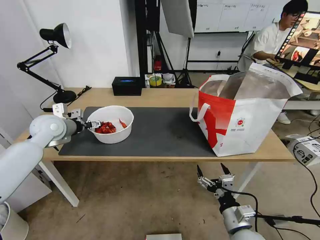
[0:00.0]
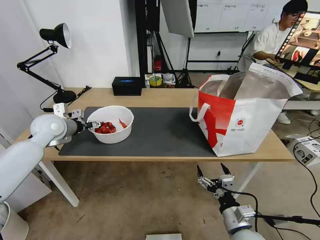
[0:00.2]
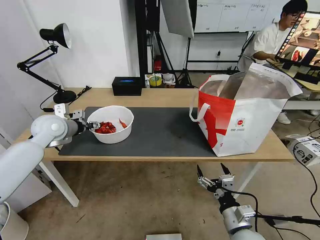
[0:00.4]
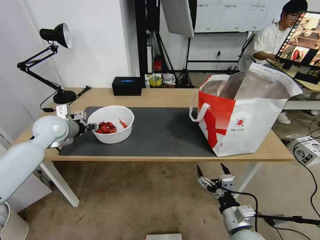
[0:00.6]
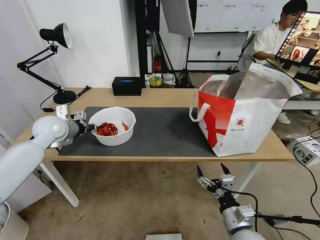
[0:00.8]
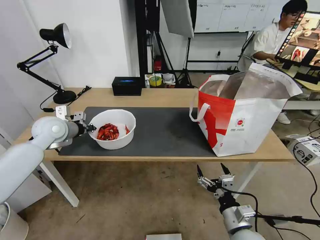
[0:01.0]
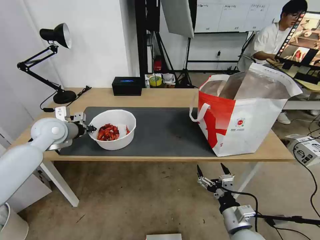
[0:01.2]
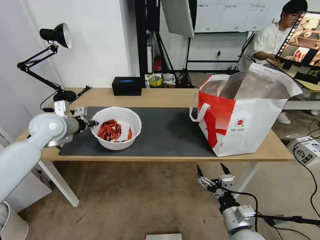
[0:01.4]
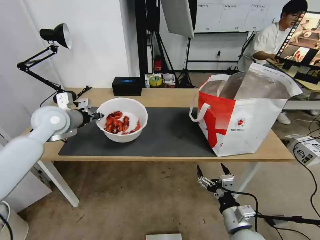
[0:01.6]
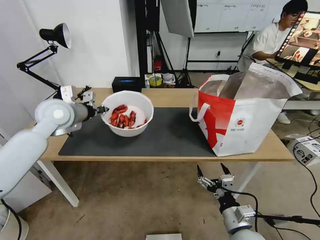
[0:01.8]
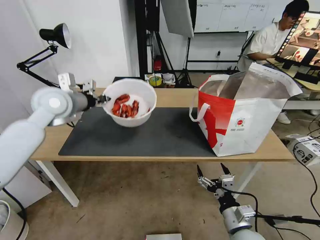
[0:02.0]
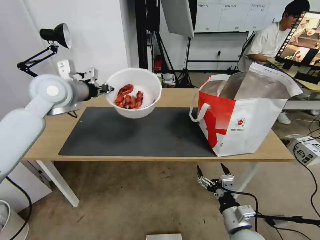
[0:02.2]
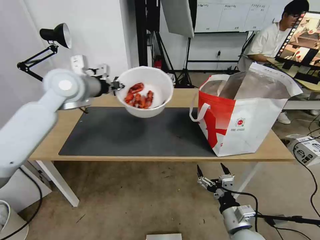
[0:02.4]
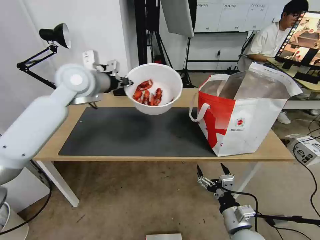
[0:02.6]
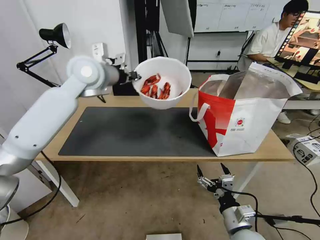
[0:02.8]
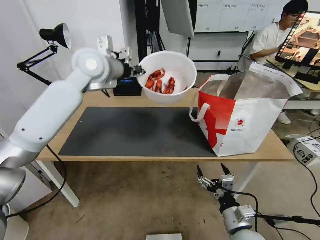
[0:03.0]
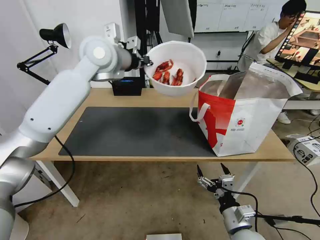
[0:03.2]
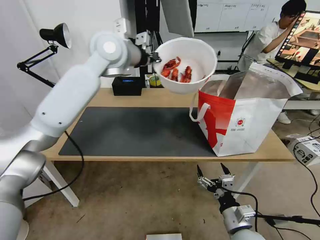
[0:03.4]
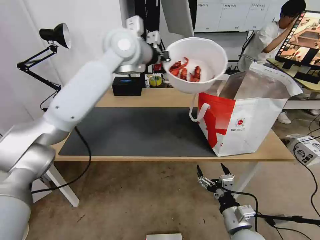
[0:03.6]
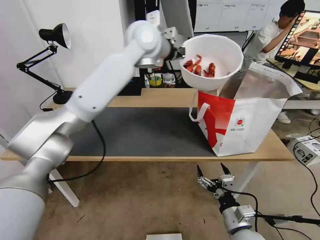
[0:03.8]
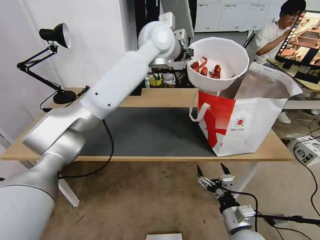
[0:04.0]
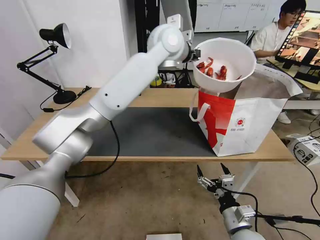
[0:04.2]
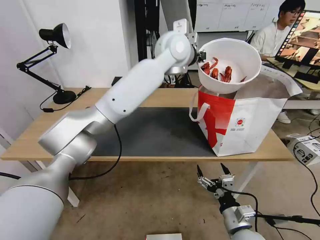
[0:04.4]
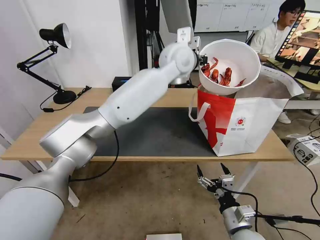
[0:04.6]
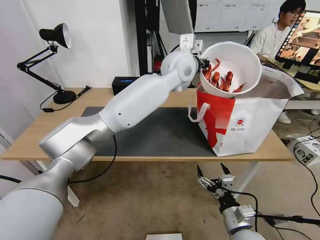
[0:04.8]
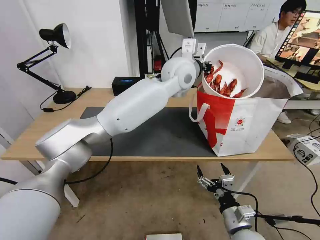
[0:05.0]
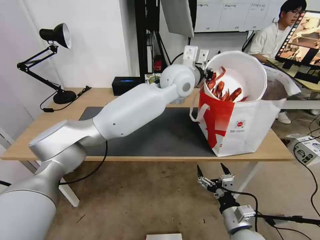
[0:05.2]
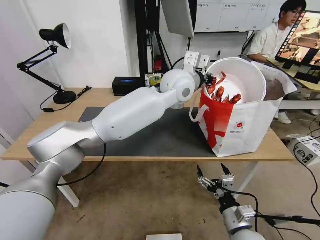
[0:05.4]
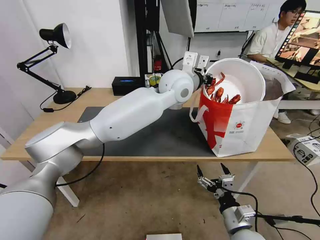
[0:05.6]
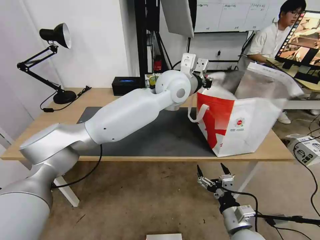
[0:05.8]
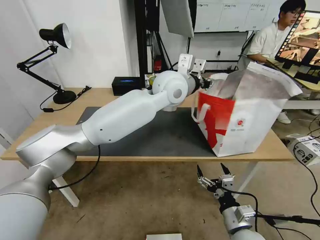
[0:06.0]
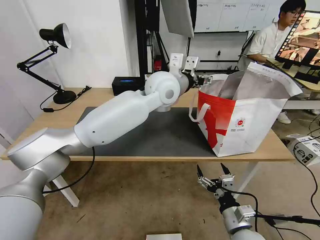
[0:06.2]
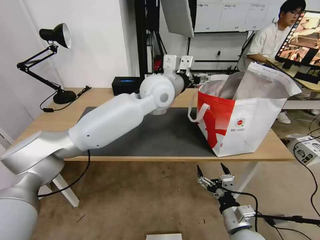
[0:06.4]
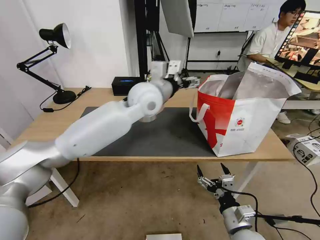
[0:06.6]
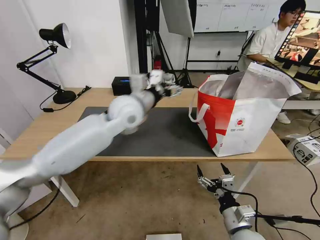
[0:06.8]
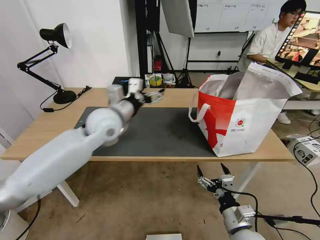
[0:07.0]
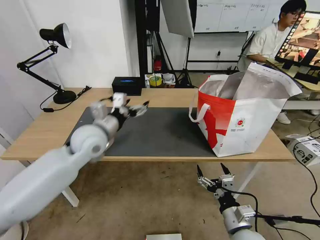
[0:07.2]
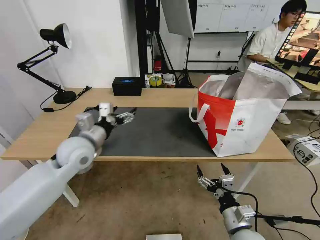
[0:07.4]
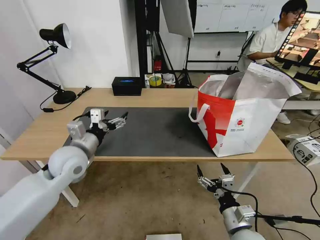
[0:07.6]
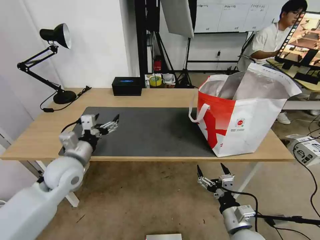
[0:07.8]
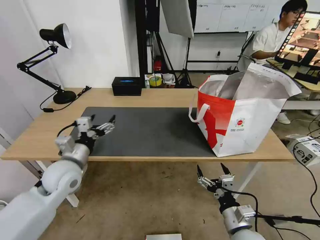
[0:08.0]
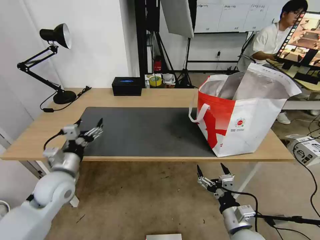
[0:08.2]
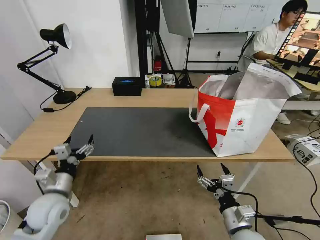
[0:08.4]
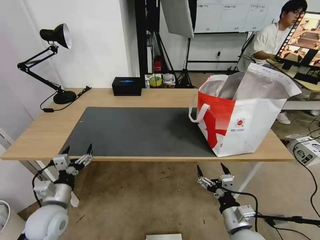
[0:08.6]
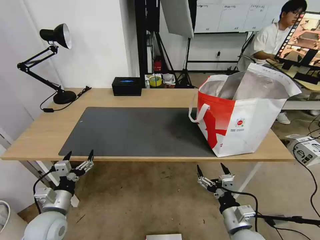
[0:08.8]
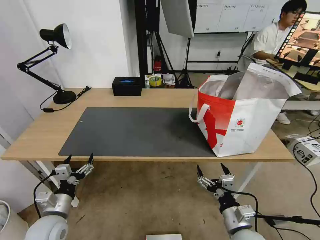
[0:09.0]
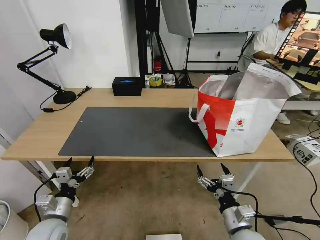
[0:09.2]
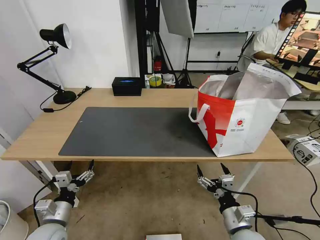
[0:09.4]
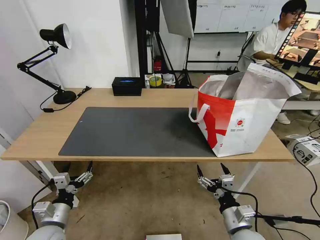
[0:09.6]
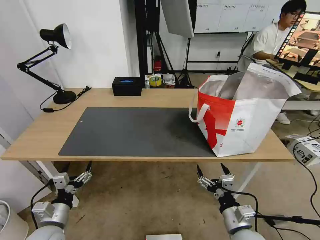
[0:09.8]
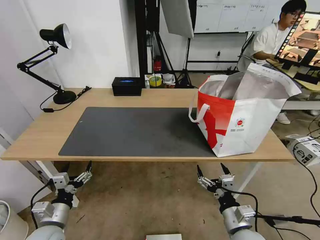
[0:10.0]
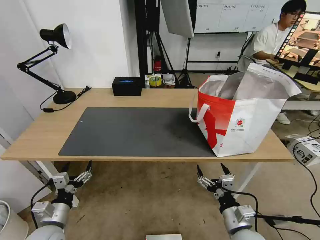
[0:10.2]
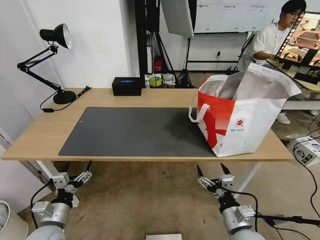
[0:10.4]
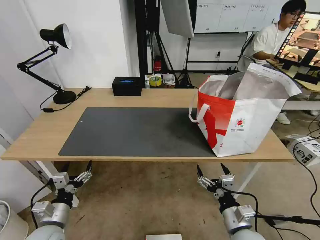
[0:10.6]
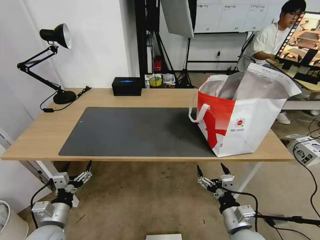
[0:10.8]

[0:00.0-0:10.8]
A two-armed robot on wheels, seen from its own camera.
Task of the whole recording: Pick up the trash from the table and place it into the takeout bag.
0:00.0 to 0:01.6: The left gripper ends up some 5 cm from where it was, and closes.
0:01.6 to 0:03.0: The left gripper heads upward, to the right and forward, covering about 20 cm.
0:03.0 to 0:04.6: The left gripper is displaced to the right by approximately 20 cm.
0:04.6 to 0:06.2: The left gripper shifts roughly 10 cm backward and downward, and opens its fingers.
0:06.2 to 0:07.8: The left gripper is displaced to the left, downward and backward by approximately 35 cm.
0:07.8 to 0:09.2: The left gripper shifts approximately 20 cm downward and backward.
0:09.2 to 0:10.8: The grippers move only a little.

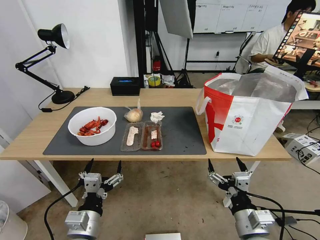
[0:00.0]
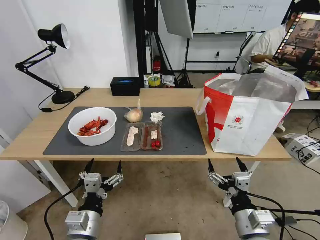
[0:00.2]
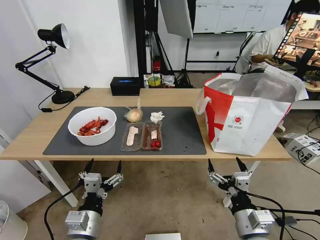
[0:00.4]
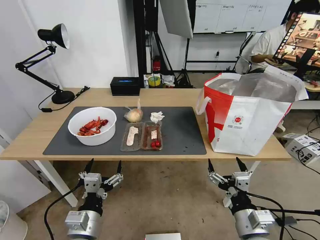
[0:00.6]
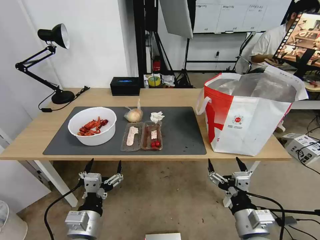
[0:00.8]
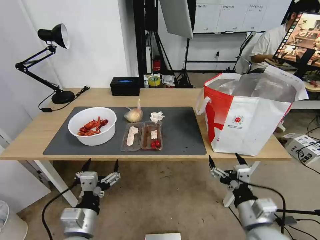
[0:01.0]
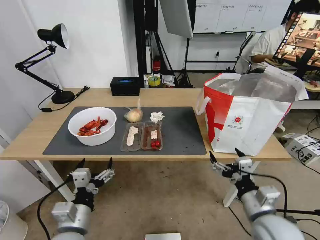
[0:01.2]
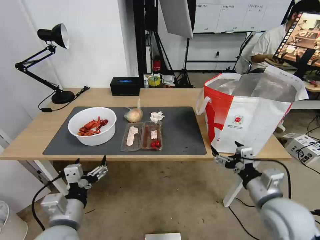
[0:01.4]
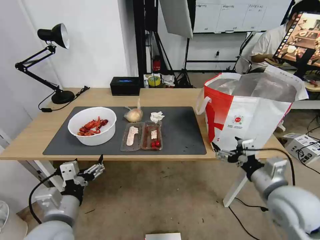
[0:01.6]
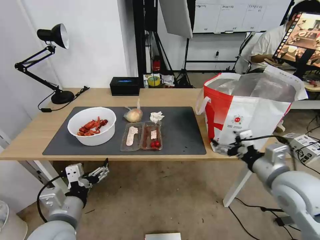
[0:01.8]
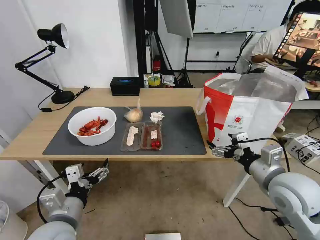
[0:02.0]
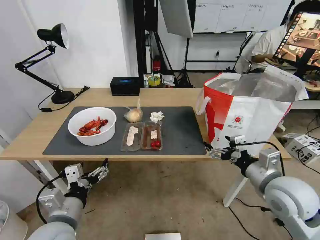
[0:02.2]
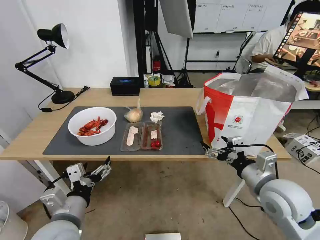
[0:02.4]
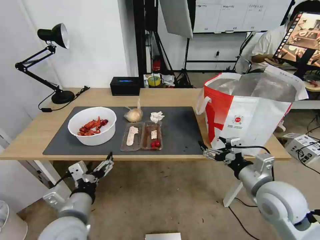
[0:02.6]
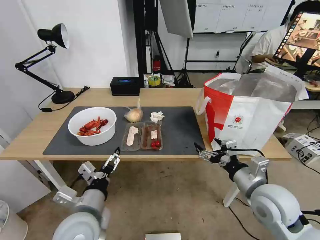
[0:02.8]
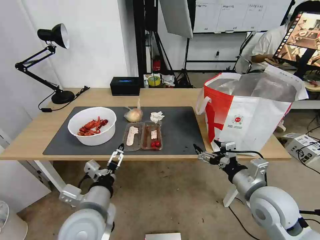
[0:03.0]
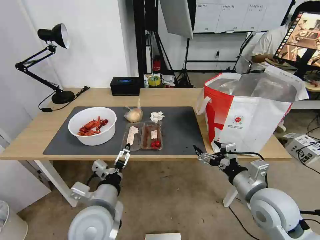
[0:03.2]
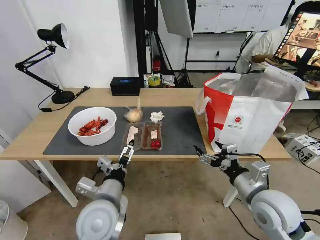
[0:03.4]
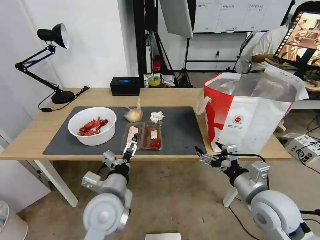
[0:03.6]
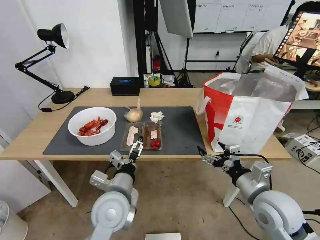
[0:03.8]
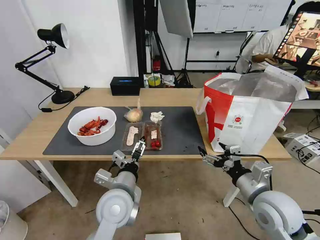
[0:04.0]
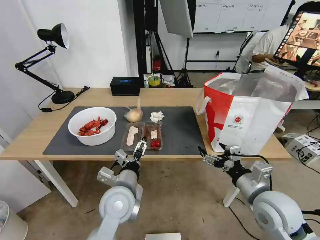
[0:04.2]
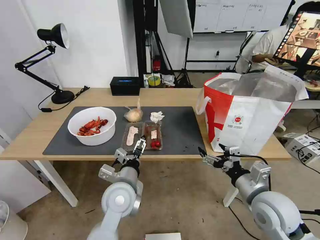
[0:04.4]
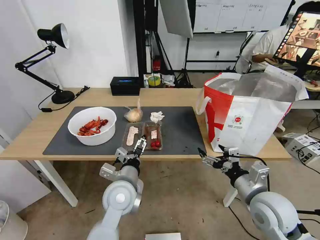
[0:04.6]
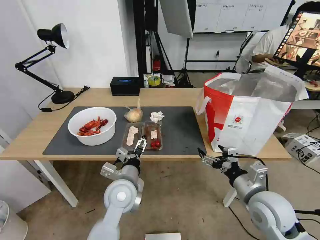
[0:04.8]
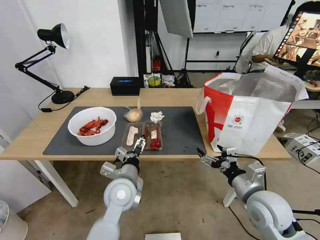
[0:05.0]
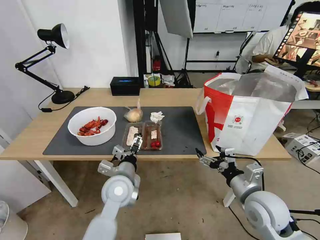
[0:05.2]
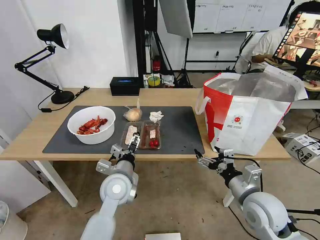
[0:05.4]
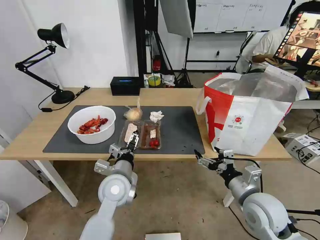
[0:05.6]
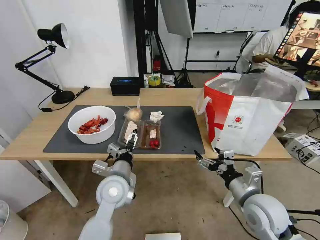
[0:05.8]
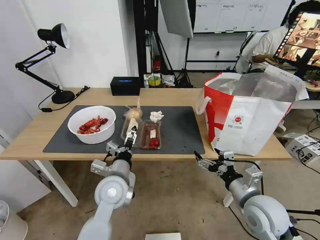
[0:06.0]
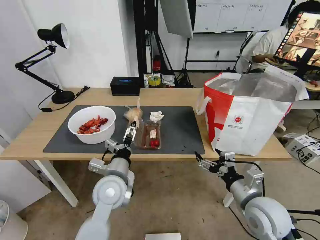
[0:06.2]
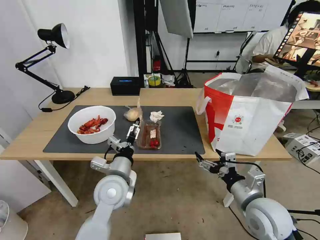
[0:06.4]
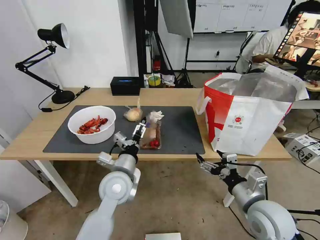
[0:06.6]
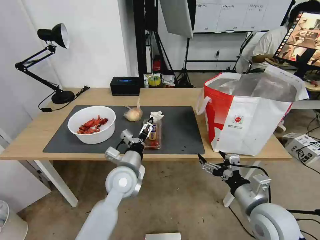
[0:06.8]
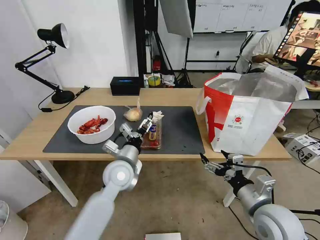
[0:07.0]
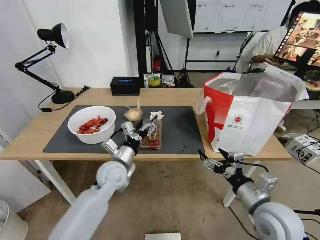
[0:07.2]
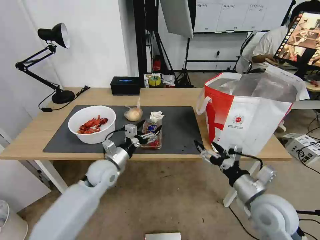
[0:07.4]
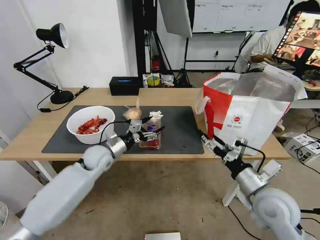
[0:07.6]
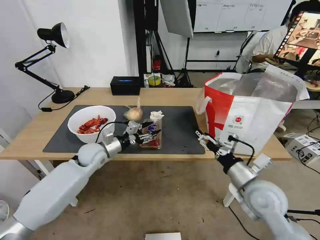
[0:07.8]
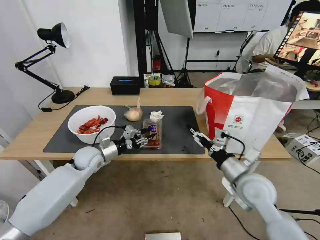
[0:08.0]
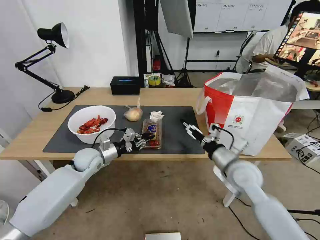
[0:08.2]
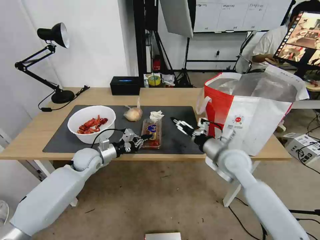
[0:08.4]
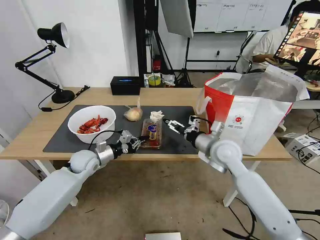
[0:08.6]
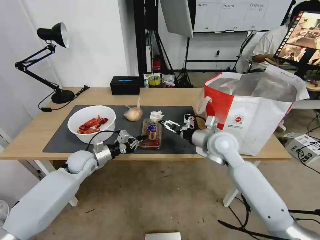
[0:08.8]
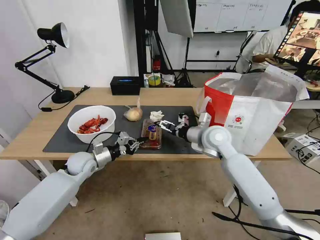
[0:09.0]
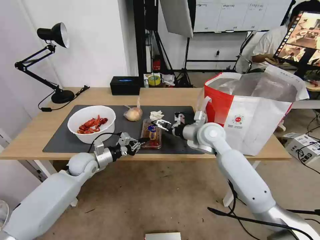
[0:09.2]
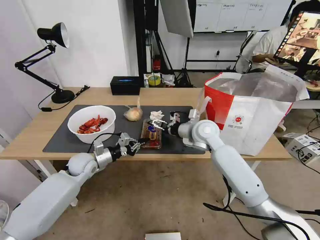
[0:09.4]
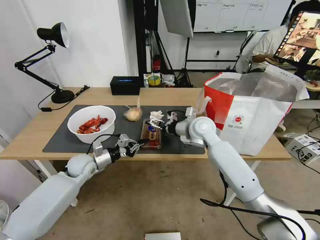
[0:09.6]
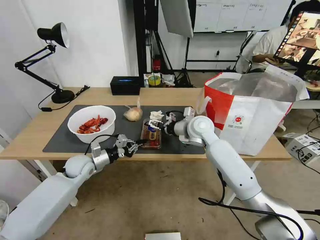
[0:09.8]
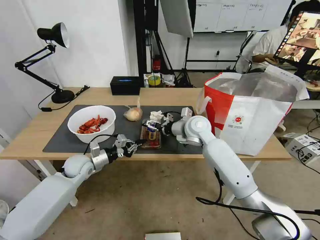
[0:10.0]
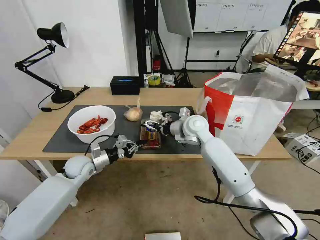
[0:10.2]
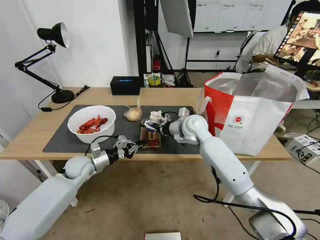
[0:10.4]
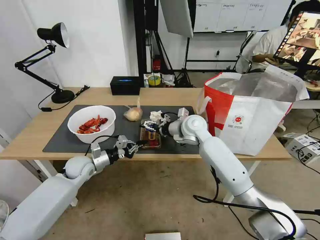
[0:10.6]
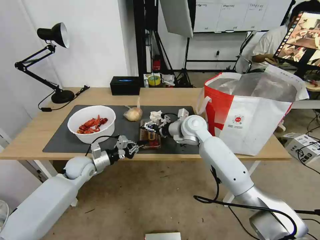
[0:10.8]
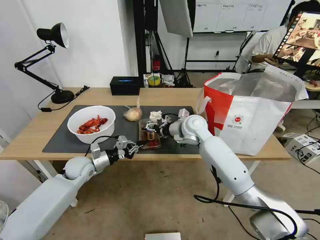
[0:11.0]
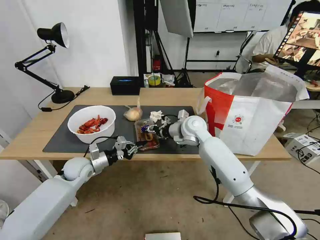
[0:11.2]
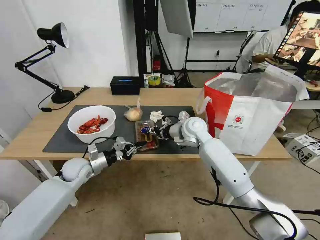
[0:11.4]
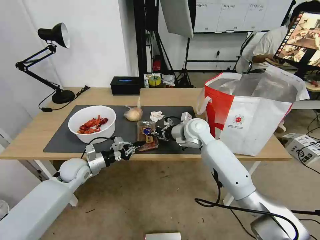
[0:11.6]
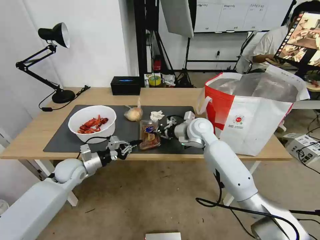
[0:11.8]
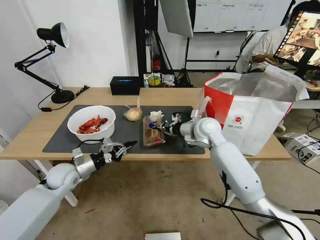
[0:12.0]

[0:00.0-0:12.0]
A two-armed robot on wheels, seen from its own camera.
Task of the whole recording: Pick up the trash from the table and place it into the takeout bag.
0:01.6 to 0:03.0: The left gripper is displaced to the right by approximately 5 cm.
0:03.0 to 0:04.4: The left gripper is displaced forward and to the right by roughly 10 cm.
0:04.4 to 0:06.0: The grippers stay close to where they were, moving slightly.
0:06.0 to 0:07.6: The left gripper shifts about 15 cm forward and to the left.
0:07.6 to 0:09.0: The left gripper goes some 5 cm to the left, and closes its fingers; the right gripper shifts some 20 cm forward and to the left.
0:09.0 to 0:10.4: The right gripper shifts approximately 10 cm forward and to the left.
0:10.4 to 0:12.0: The right gripper closes up; the left gripper moves approximately 5 cm.
